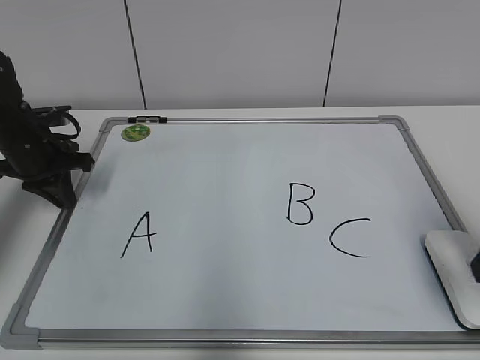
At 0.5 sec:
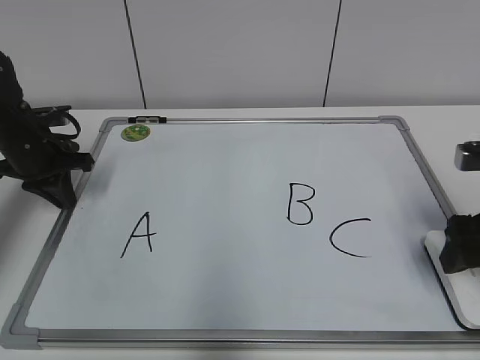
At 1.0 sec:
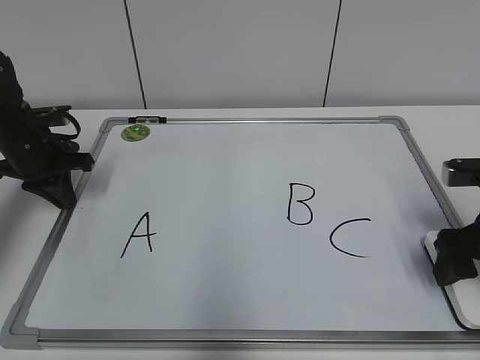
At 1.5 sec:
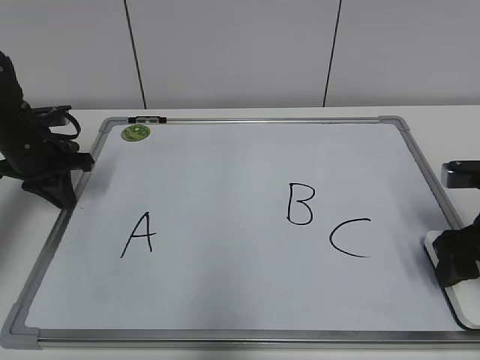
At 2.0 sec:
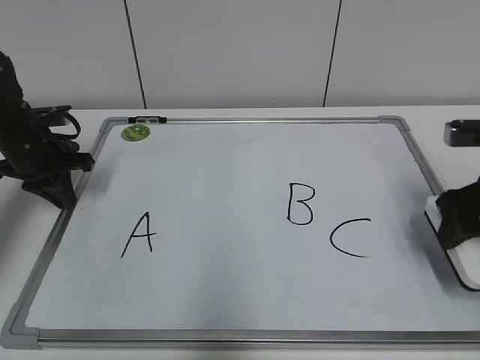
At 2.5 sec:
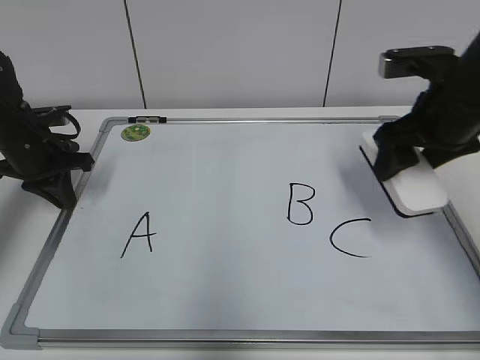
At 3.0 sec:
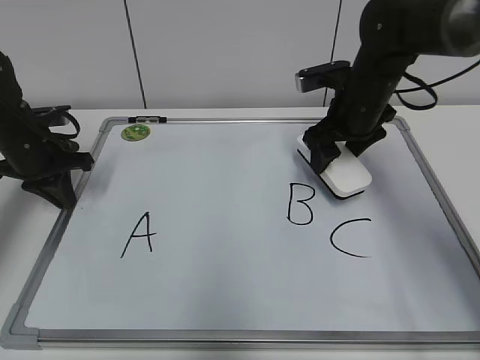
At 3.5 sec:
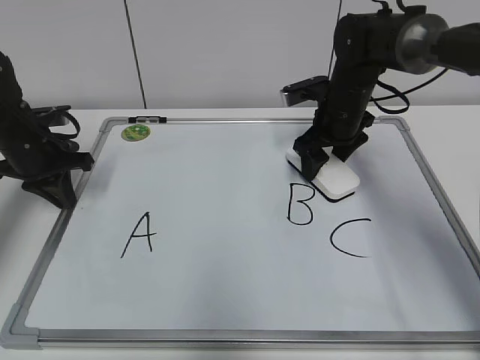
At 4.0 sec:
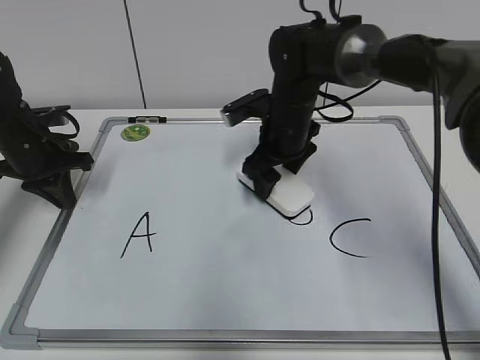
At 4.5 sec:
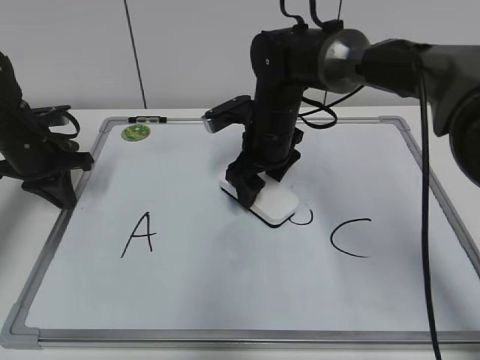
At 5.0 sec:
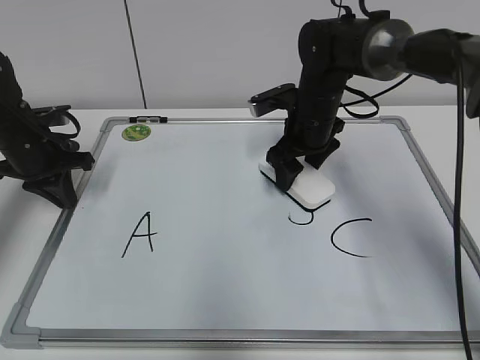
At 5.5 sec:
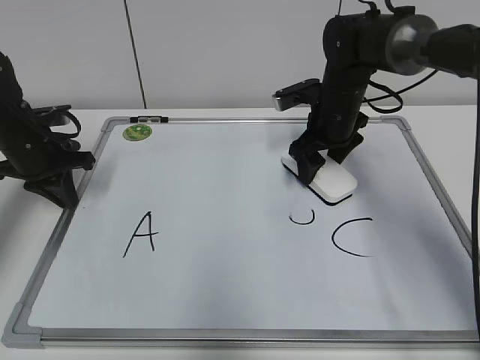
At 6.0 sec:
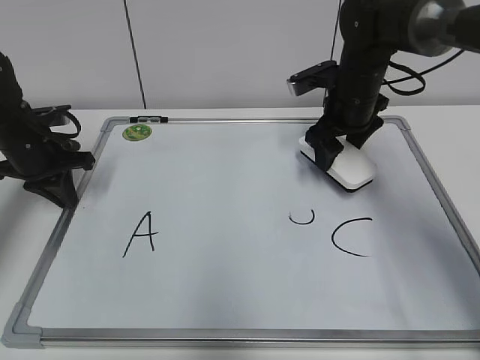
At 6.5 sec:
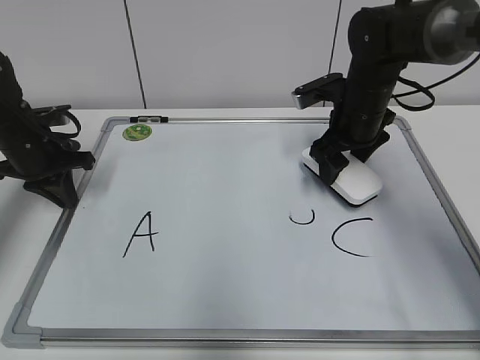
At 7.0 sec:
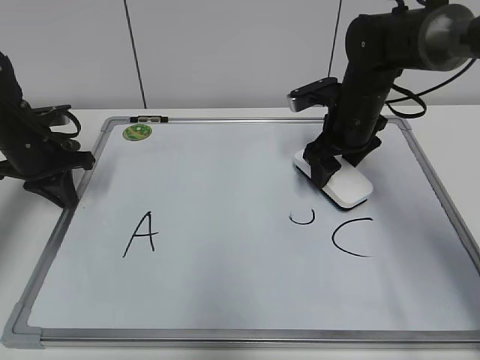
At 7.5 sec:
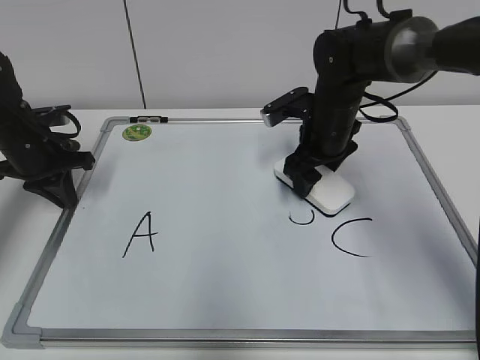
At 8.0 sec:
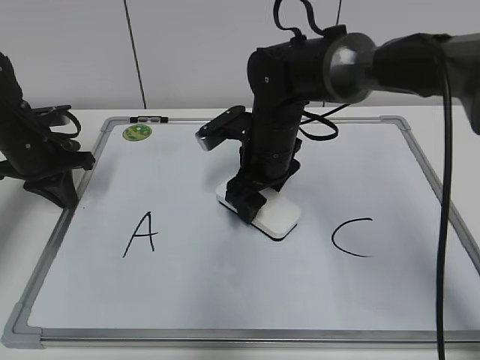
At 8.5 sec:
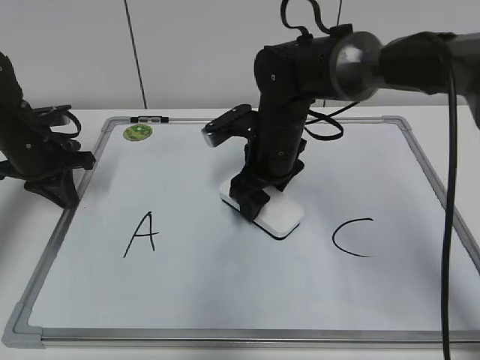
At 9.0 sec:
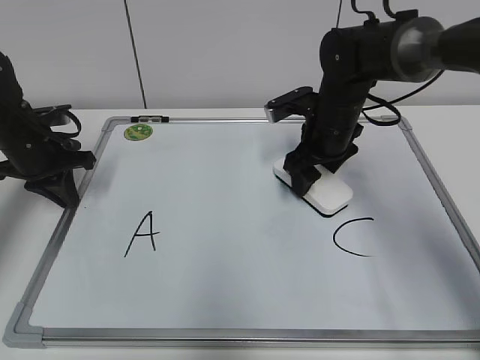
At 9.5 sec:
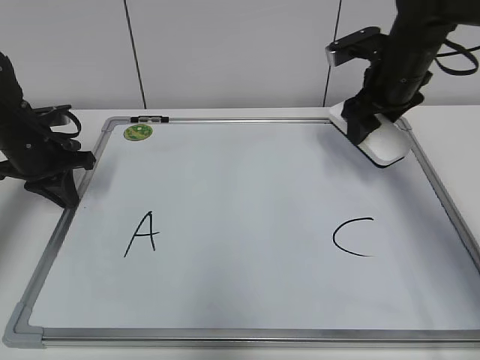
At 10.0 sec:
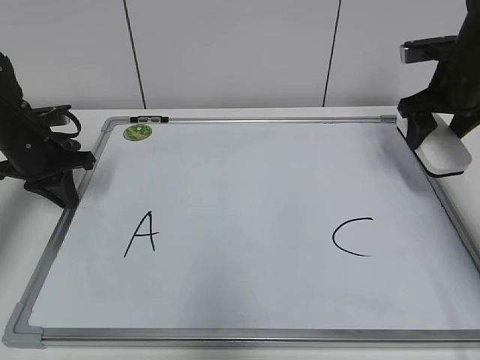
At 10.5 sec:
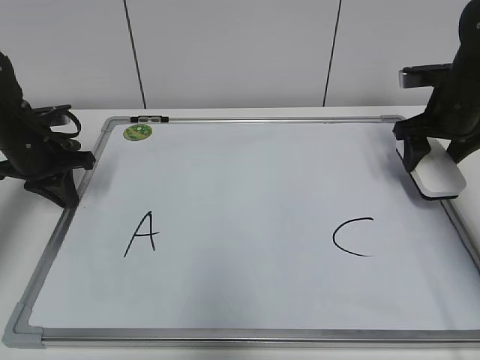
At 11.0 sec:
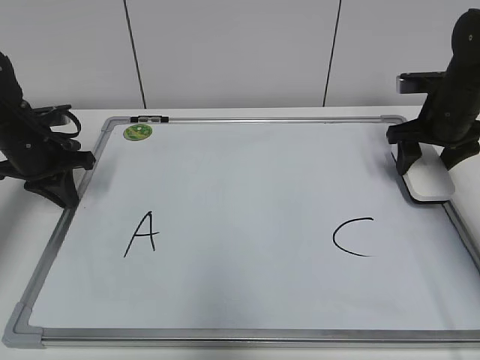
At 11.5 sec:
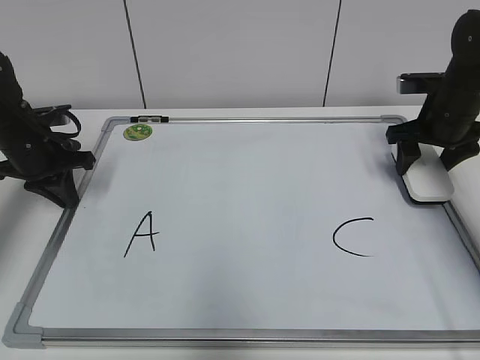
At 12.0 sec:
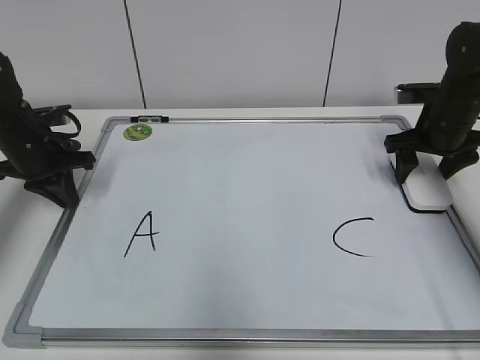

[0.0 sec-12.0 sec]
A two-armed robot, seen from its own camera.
Task of the whole recording: pick up the eraser on the blackboard and erase the letter "B".
Step, 2.0 sec to 9.0 sec: Erase the letter B with your right hand.
0.0 sec to 2.0 sec: The right gripper travels forward by about 10 cm, and closes up.
2.0 sec to 4.0 sec: The right gripper is displaced to the left and forward by about 25 cm.
4.0 sec to 6.0 sec: The right gripper shifts about 10 cm to the right.
6.0 sec to 8.0 sec: The right gripper shifts about 15 cm to the left and backward.
8.0 sec to 10.0 sec: The right gripper travels to the right by some 25 cm.
10.0 sec to 12.0 sec: The right gripper heads downward, covering approximately 5 cm.

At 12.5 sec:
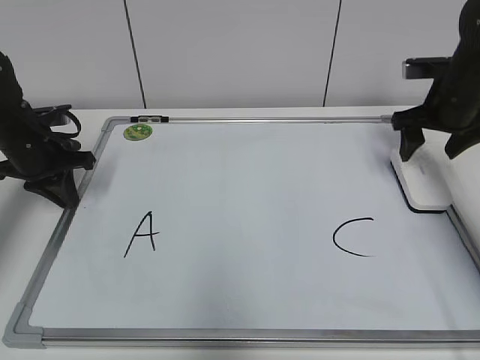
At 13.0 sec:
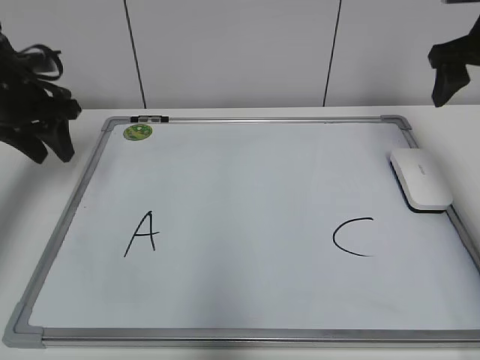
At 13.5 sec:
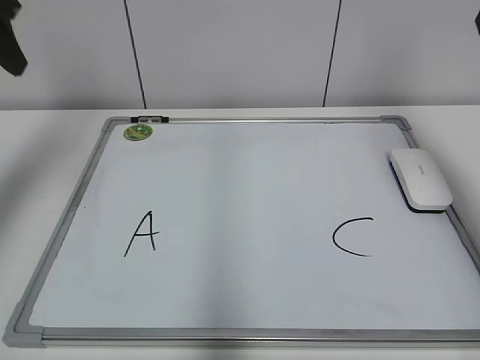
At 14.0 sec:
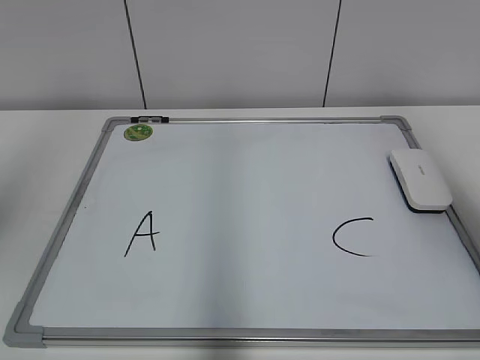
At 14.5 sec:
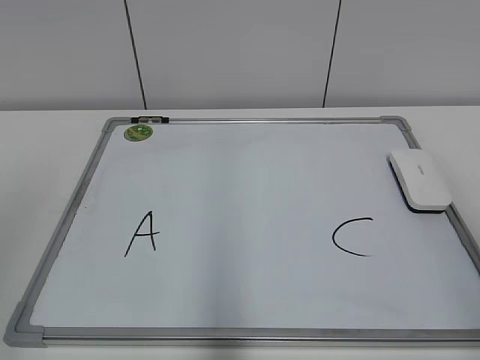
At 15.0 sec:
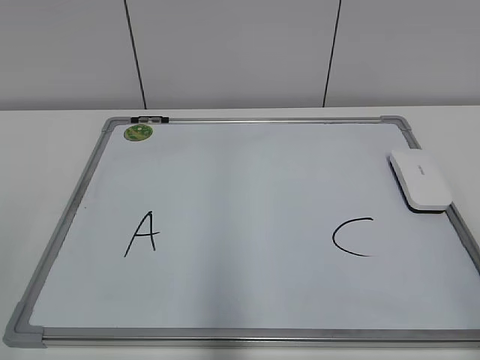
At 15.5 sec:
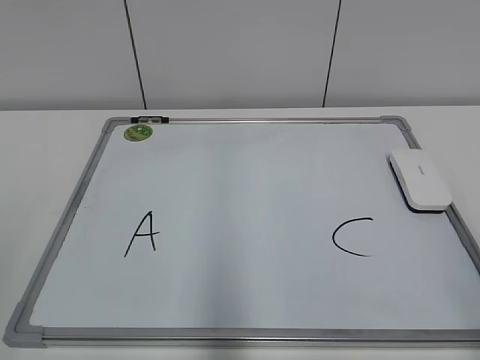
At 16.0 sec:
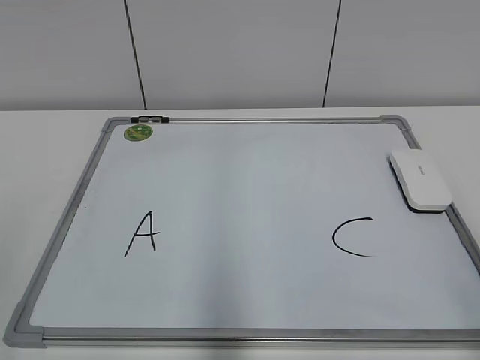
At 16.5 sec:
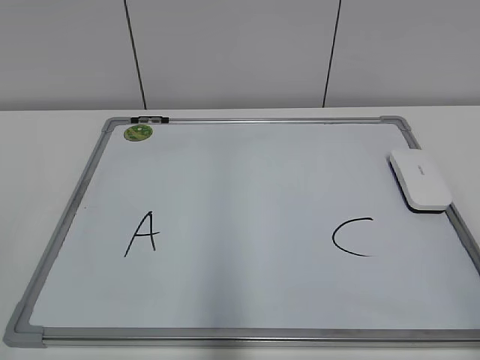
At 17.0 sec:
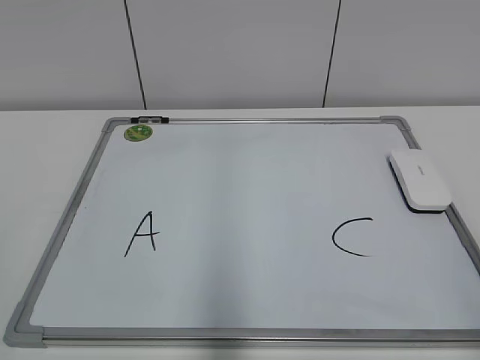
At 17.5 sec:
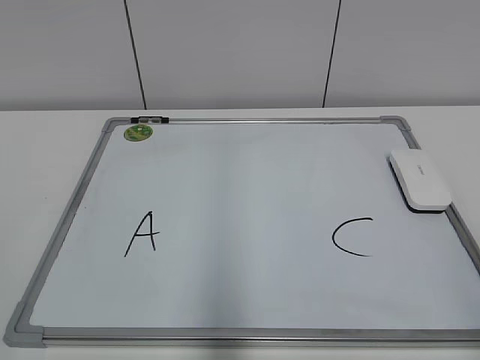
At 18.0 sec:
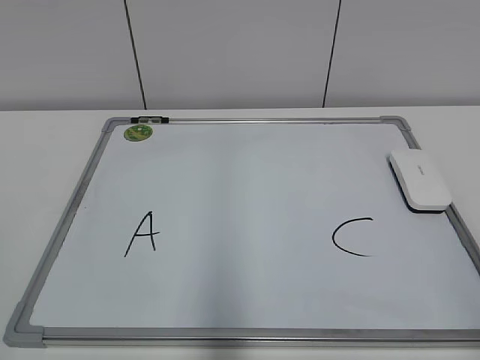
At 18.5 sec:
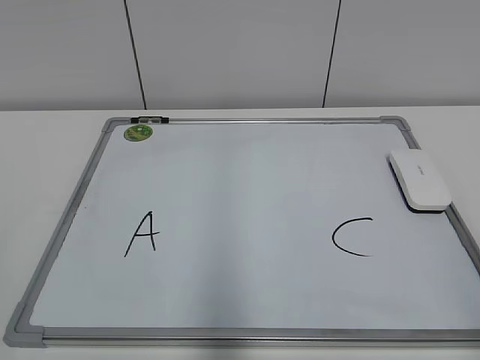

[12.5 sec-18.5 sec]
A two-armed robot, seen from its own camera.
Task of the whole recording: pick up the eraser on the blackboard and erase the letter "B".
12.5 sec to 14.5 sec: Both grippers move backward and upward, approximately 40 cm. The left gripper opens up.
